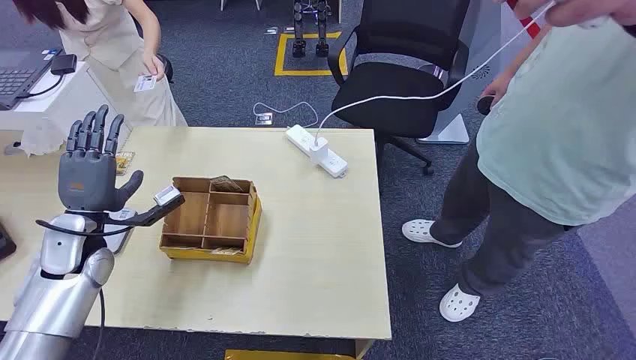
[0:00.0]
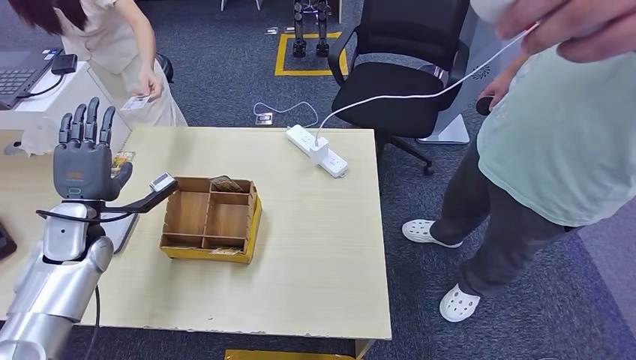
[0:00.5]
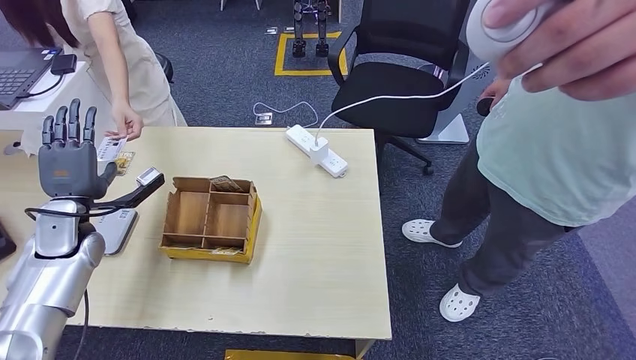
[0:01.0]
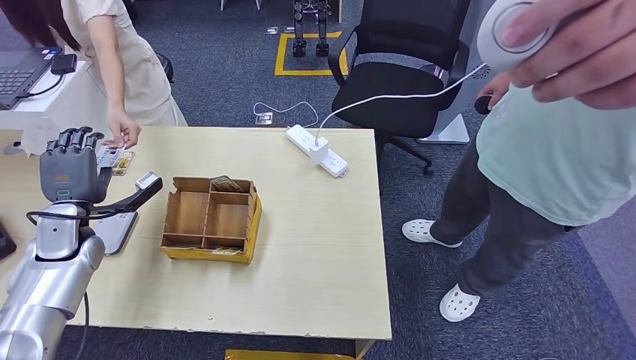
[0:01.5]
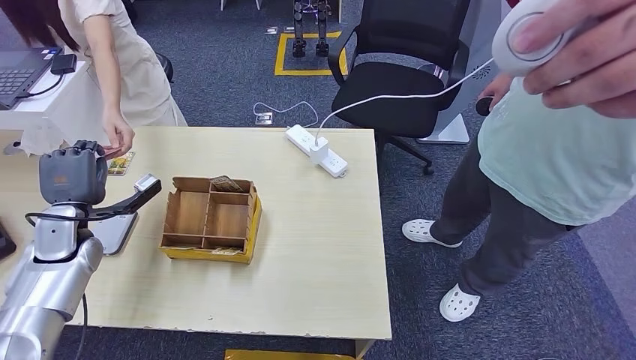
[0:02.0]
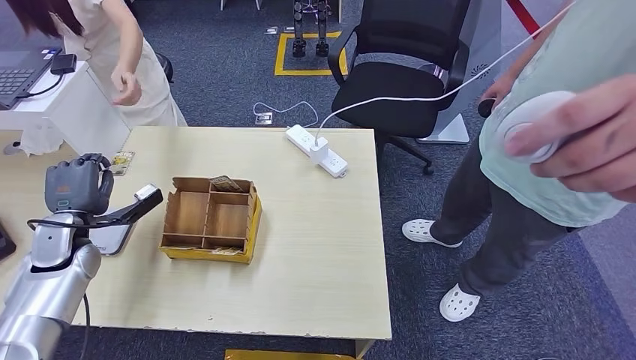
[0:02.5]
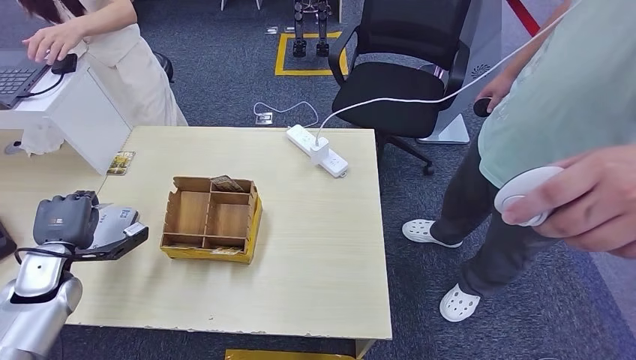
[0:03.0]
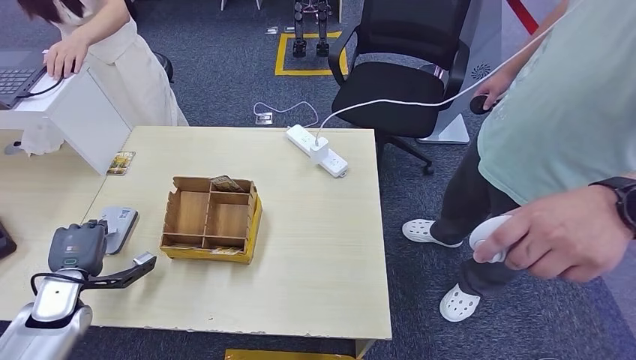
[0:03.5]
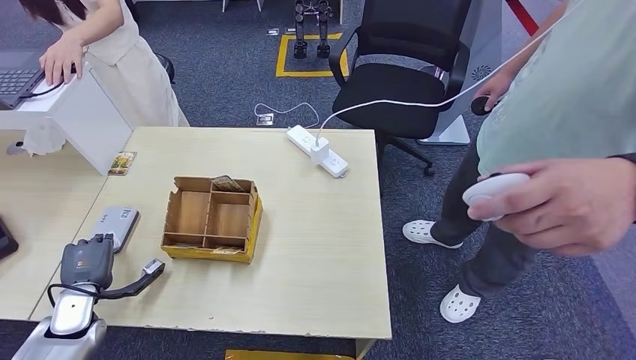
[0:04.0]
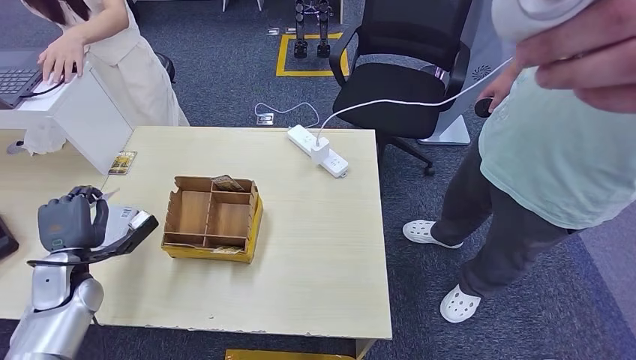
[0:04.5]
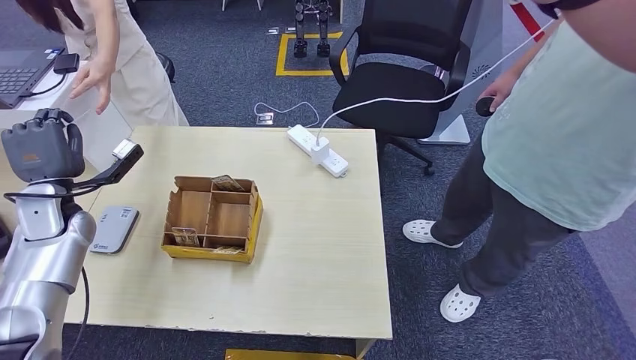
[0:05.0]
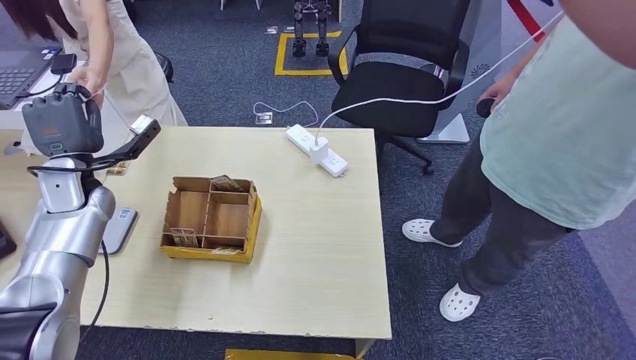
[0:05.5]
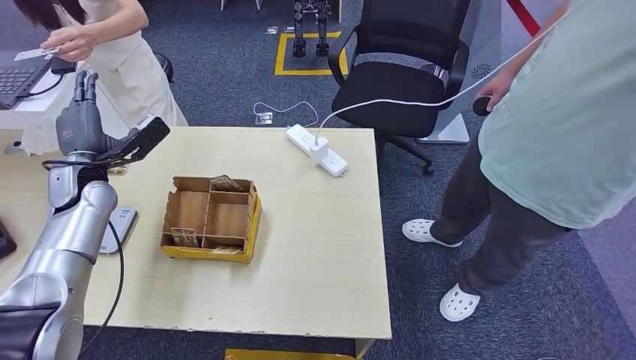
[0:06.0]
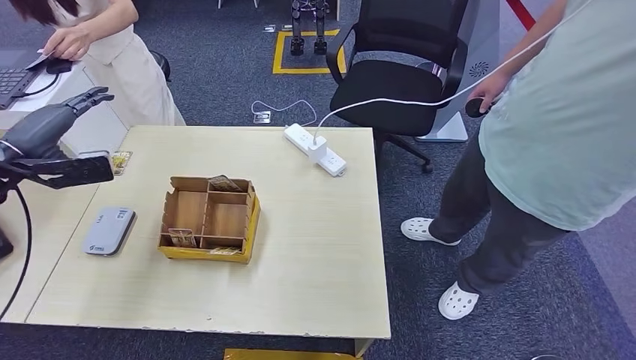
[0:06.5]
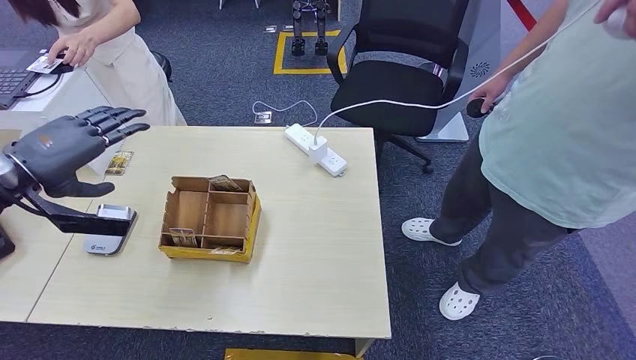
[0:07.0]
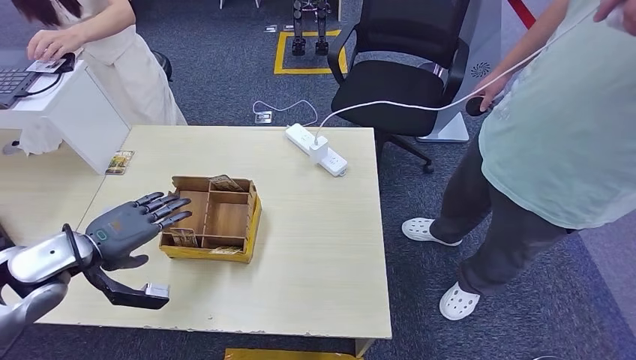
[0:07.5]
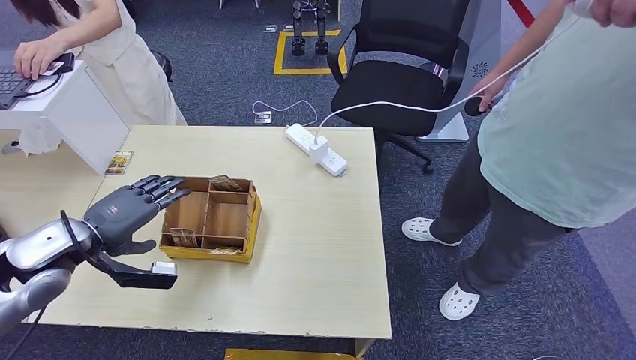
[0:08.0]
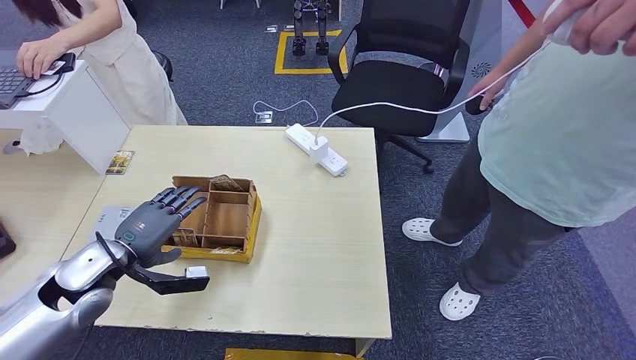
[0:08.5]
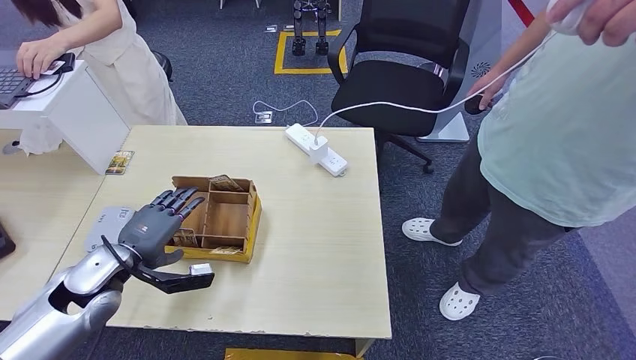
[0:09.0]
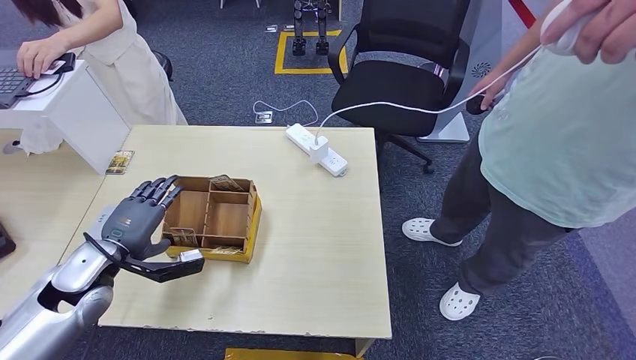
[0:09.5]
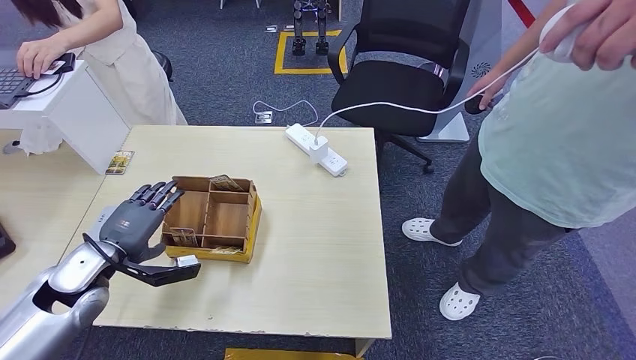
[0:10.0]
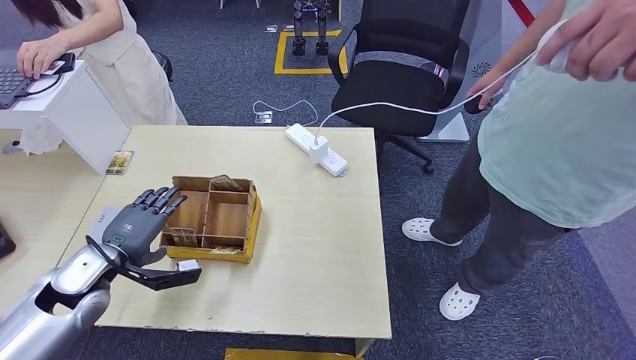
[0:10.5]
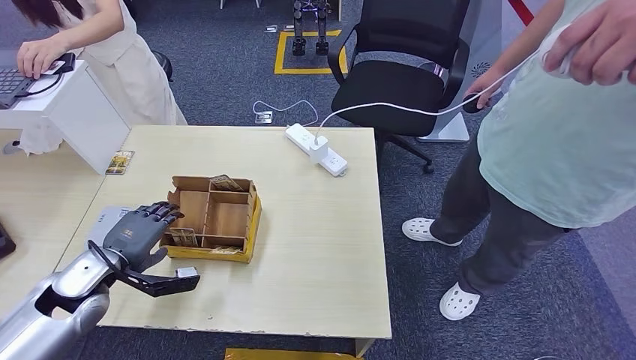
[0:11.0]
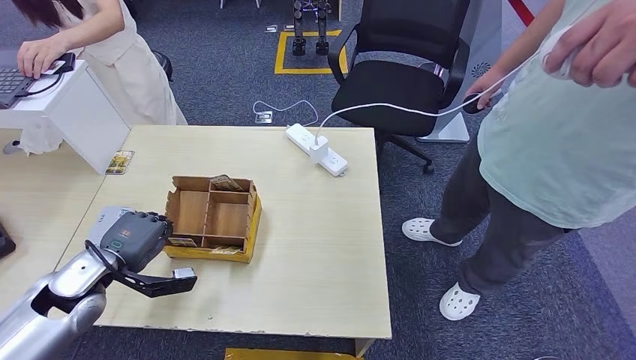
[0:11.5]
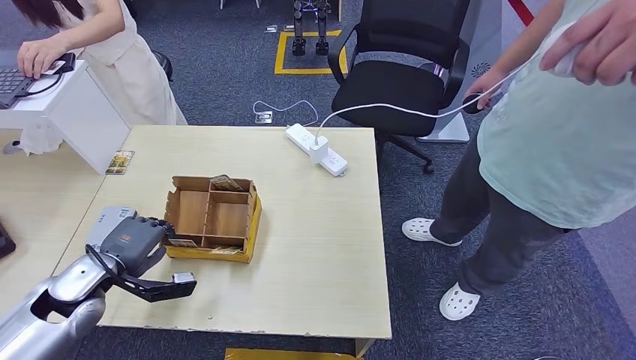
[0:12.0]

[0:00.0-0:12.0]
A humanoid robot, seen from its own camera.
Step, 0:00.0 to 0:04.0: Take the ID card from the person's hand.
Step, 0:04.5 to 0:05.0: Place the ID card on the card reader.
Step, 0:05.5 to 0:08.0: Hand the ID card to the person.
0:04.0 to 0:06.0: The left hand heads upward and forward, covering about 25 cm.
0:06.0 to 0:08.0: The left hand heads backward, covering approximately 15 cm.
0:08.0 to 0:10.0: The left hand moves downward, approximately 5 cm.
0:10.0 to 0:12.0: The hands make only small movements.

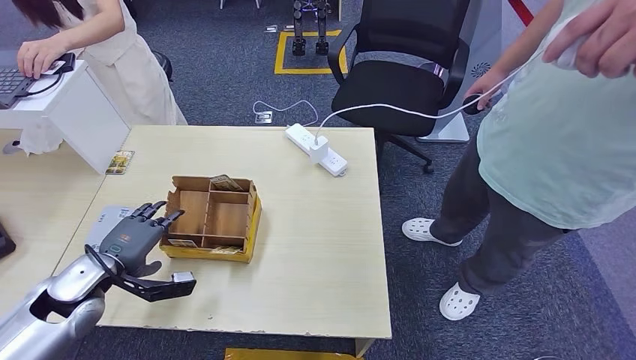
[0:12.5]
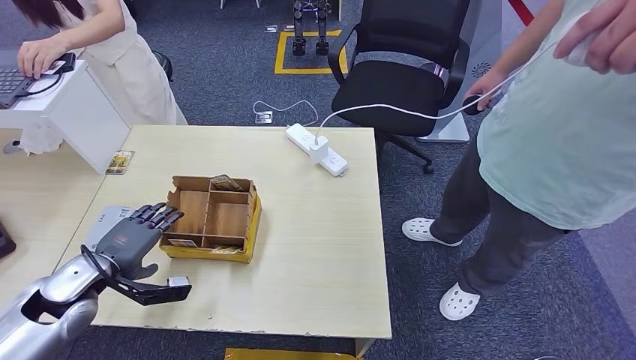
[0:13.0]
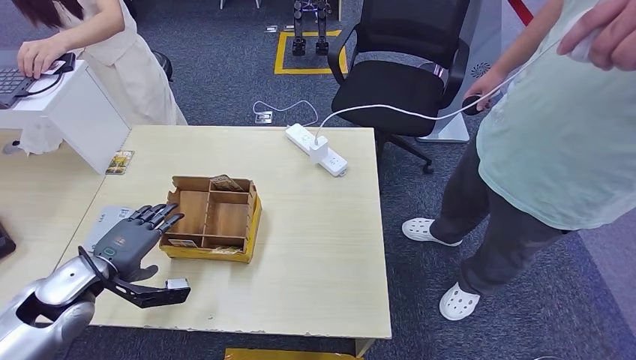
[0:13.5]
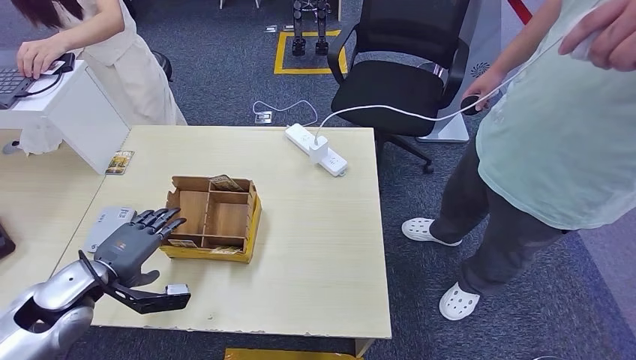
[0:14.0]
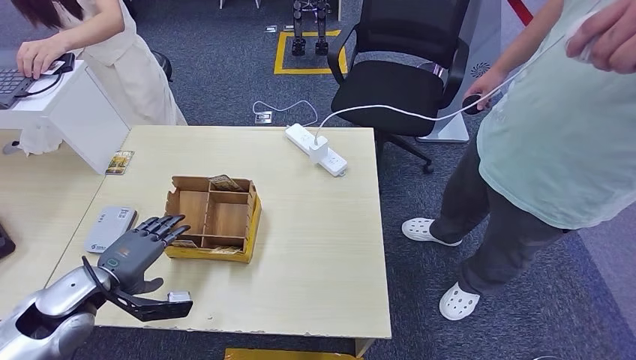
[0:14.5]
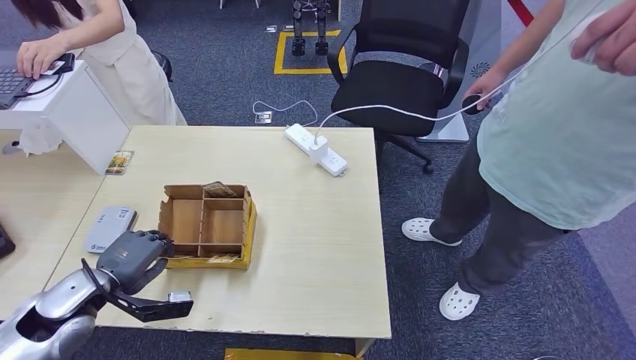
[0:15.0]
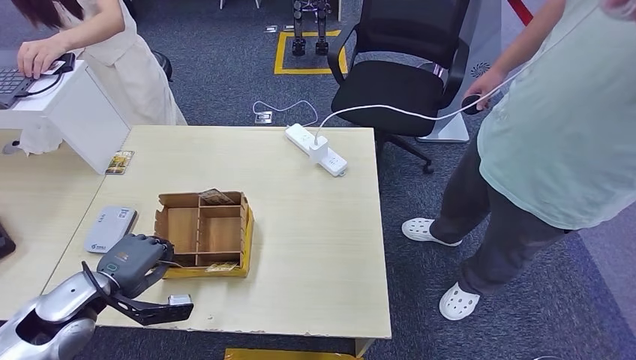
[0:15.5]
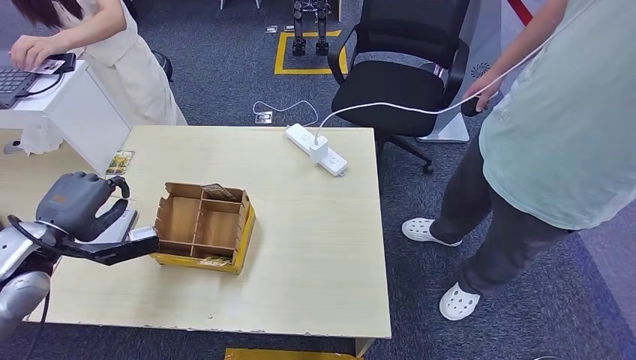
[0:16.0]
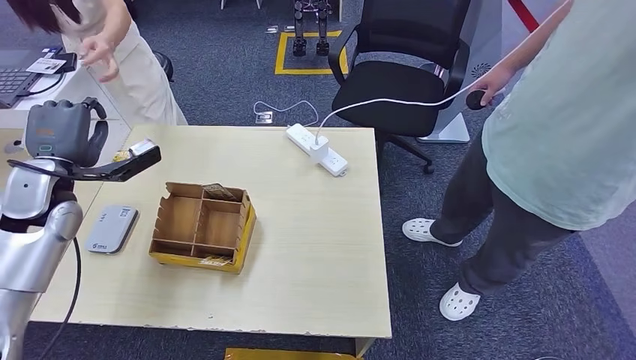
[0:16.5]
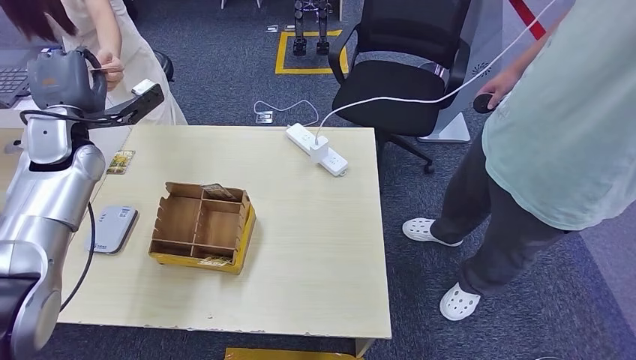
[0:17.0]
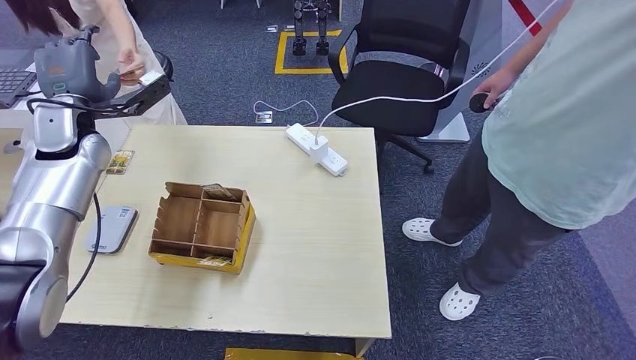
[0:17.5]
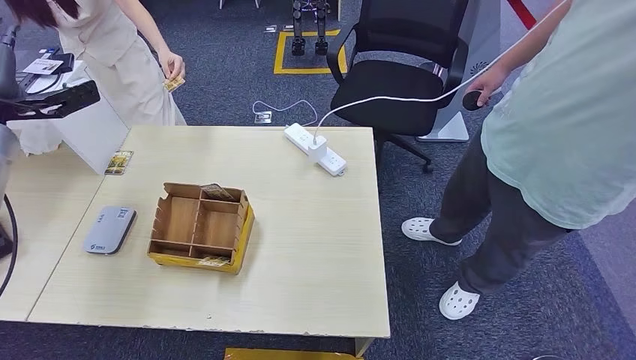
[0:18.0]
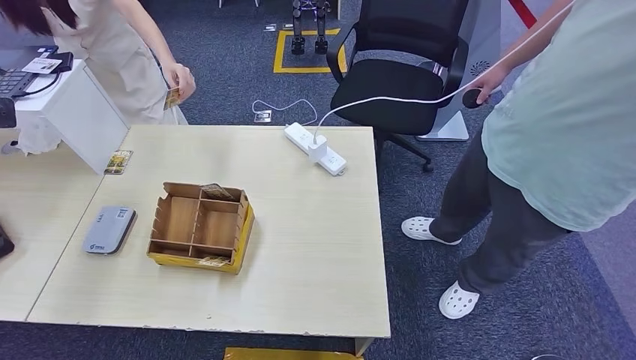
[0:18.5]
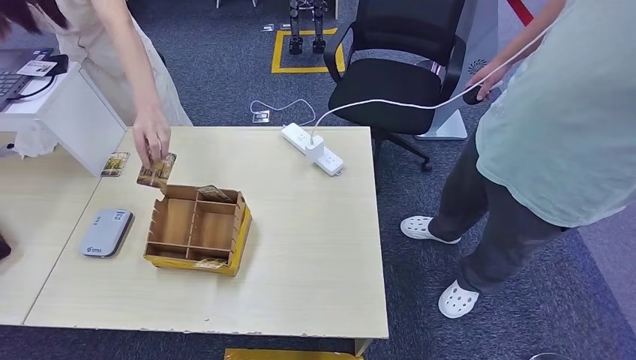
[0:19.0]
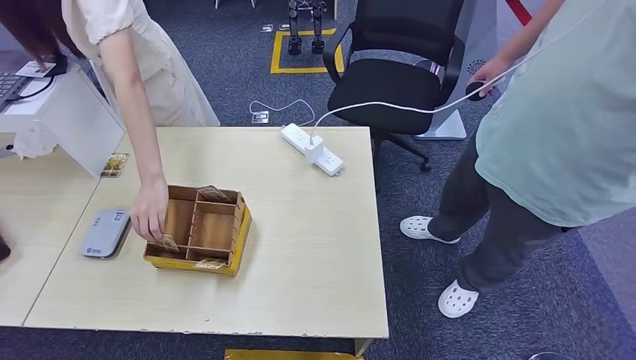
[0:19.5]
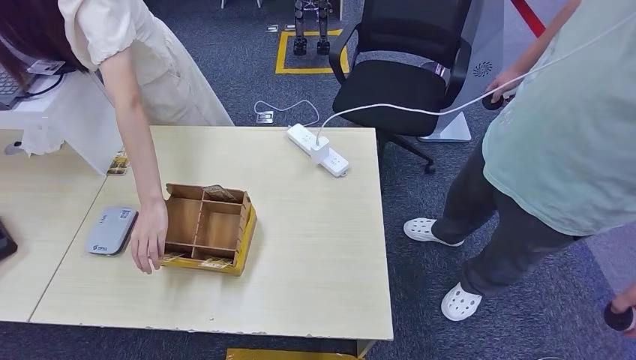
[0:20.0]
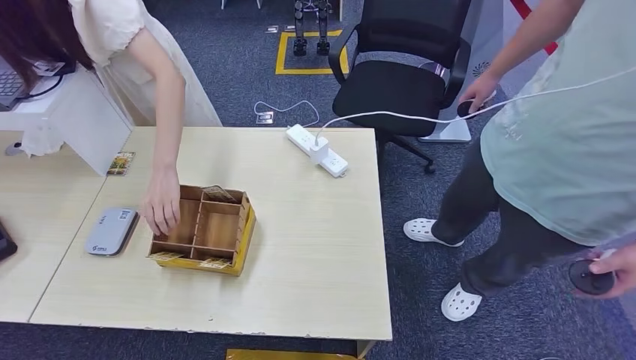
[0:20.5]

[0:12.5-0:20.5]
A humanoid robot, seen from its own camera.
Step, 0:12.5 to 0:16.5: Pick up the room key from the key card box.
Step, 0:17.0 to 0:20.5: Hand the room key to the person.
0:12.5 to 0:14.5: There are only small adjustments of the hands.
0:14.5 to 0:16.5: The left hand shifts approximately 20 cm upward and forward.
0:16.5 to 0:18.5: The left hand travels upward and to the left by some 25 cm.
0:18.5 to 0:20.5: The right hand shifts some 5 cm backward, while the left hand shifts roughly 70 cm downward, backward and to the right.
